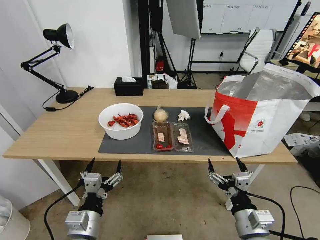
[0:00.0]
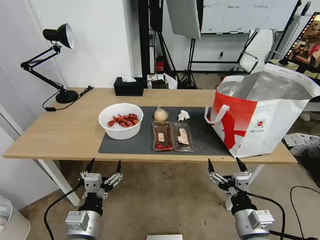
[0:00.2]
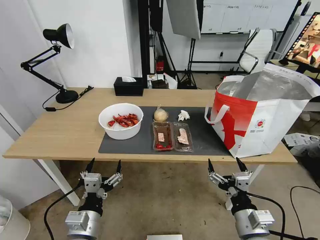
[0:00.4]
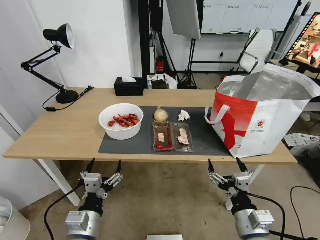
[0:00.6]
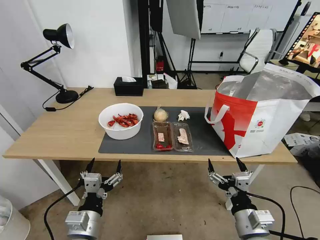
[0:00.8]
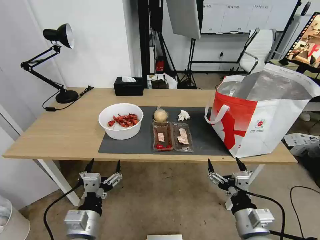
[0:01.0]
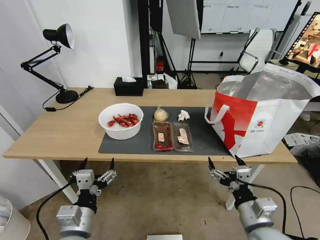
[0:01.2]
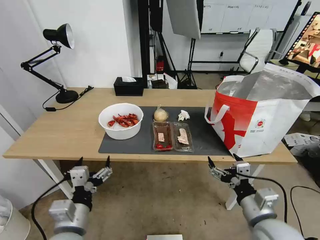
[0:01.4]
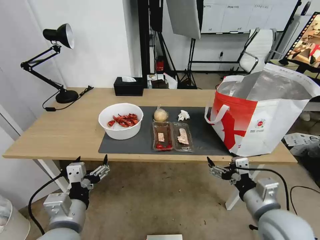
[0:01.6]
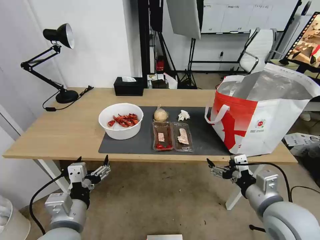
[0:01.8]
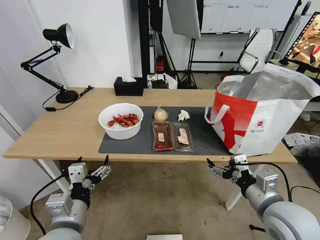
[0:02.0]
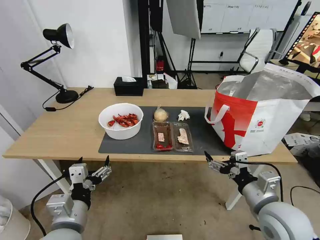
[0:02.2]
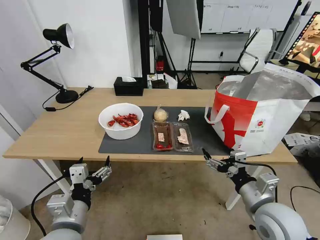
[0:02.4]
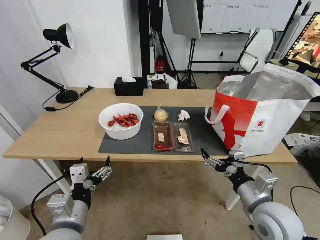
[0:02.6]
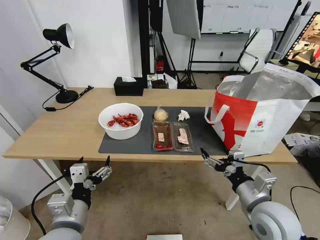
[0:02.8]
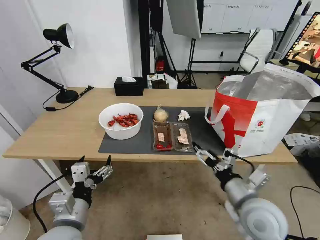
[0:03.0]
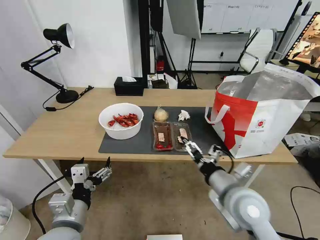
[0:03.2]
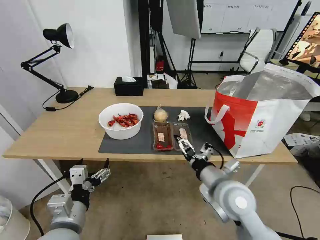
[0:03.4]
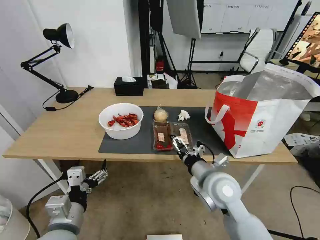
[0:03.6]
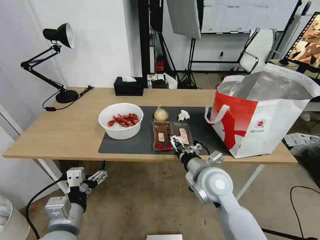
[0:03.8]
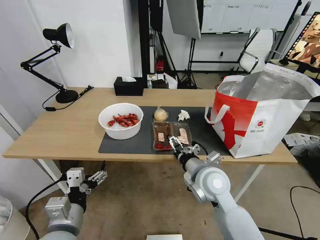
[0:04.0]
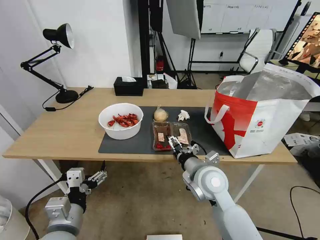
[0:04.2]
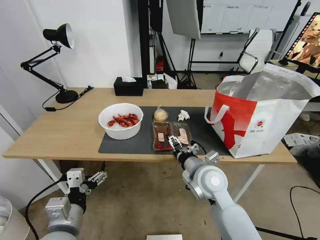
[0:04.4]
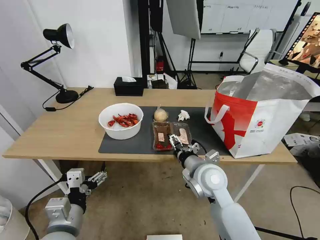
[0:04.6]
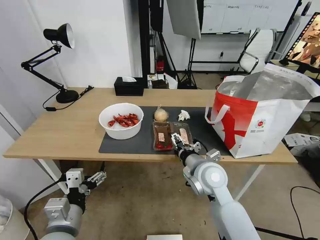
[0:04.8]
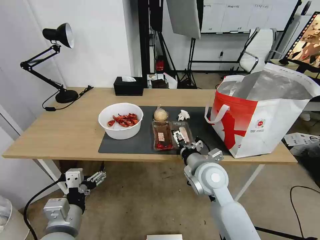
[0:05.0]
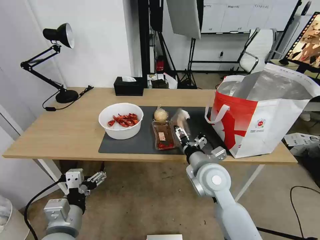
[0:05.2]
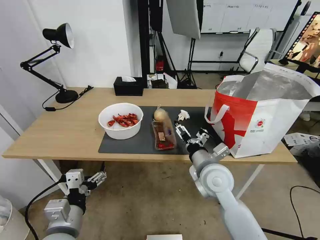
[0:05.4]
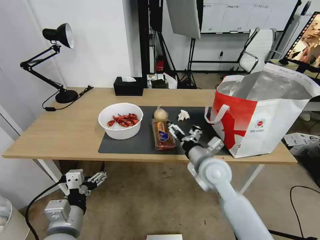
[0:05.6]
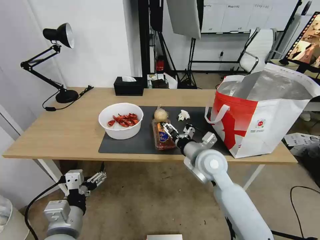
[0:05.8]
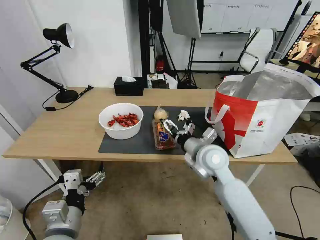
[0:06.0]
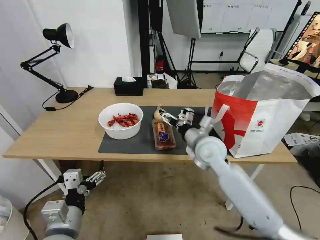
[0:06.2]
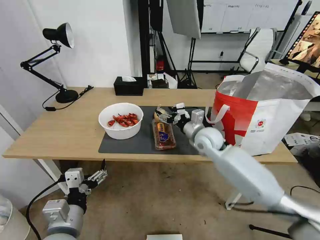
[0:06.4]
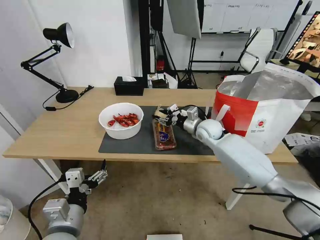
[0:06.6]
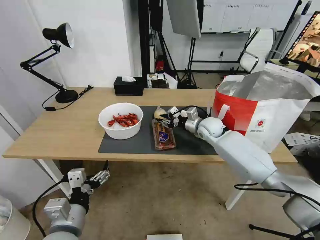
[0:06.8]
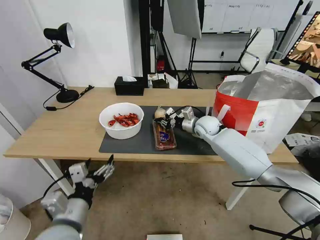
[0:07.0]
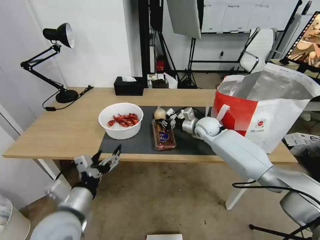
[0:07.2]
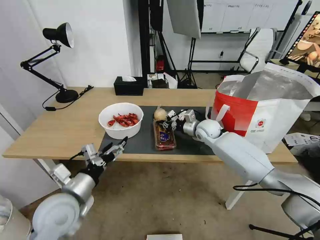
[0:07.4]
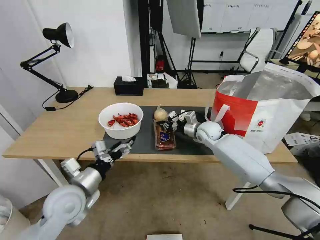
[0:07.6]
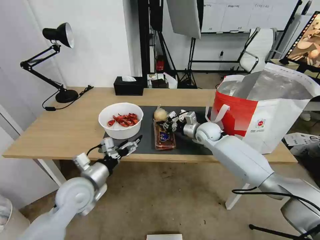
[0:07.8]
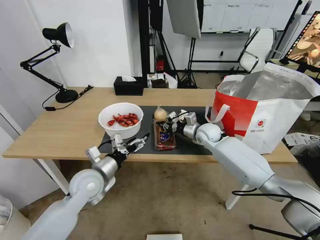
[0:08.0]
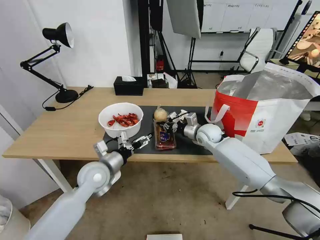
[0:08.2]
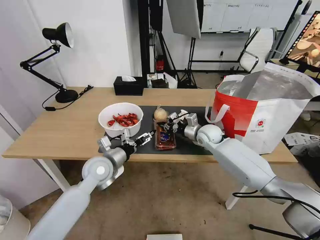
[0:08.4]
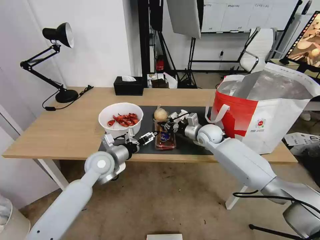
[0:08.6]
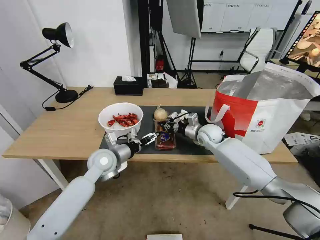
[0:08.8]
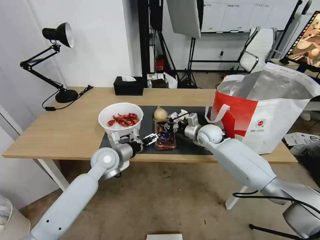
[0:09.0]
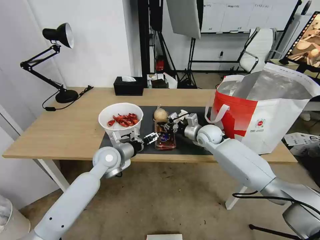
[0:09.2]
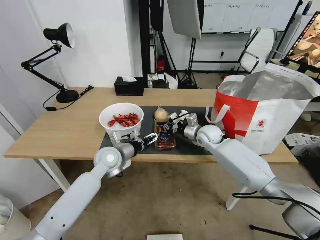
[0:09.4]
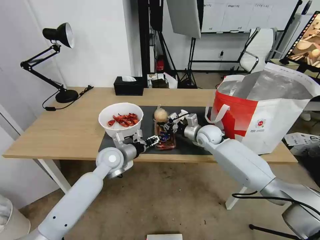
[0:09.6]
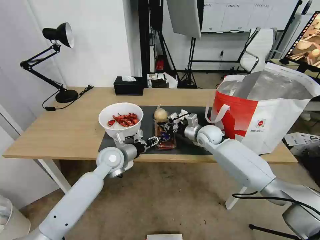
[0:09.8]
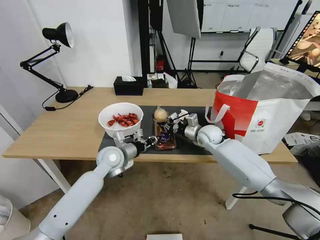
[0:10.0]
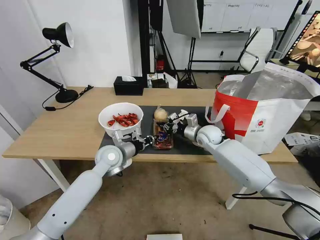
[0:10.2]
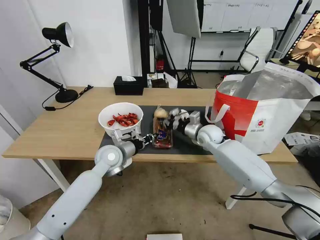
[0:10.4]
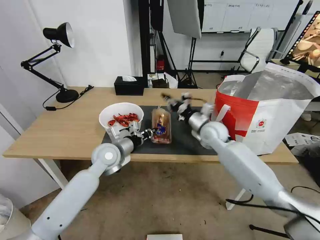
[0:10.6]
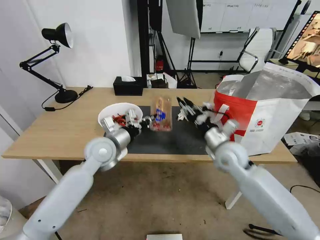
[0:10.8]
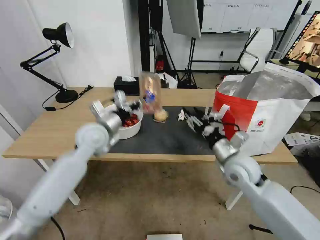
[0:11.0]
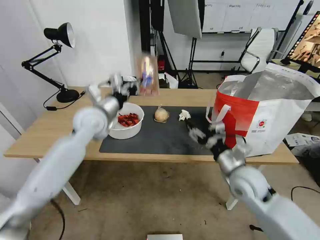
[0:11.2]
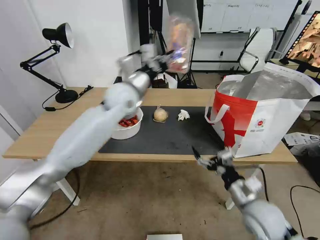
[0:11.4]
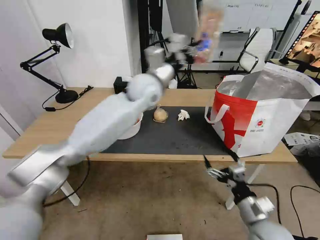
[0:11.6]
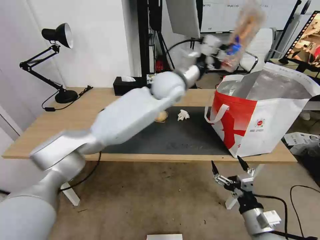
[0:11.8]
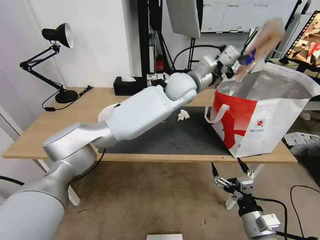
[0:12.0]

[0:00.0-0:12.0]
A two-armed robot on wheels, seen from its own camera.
Task of the whole recording: Pick up the trash from the table and place it into the takeout bag.
0:03.0 to 0:04.4: The right gripper moves to the left and forward, roughly 15 cm.
0:04.4 to 0:06.0: The right gripper heads forward, covering approximately 5 cm.
0:06.0 to 0:07.6: The left gripper is displaced forward by some 10 cm, while the right gripper heads forward, covering about 15 cm, and closes.
0:07.6 to 0:09.0: The left gripper goes about 15 cm forward and to the right.
0:09.0 to 0:10.4: The left gripper closes.
0:10.4 to 0:12.0: The right gripper is displaced backward by about 40 cm, and opens up; the left gripper shifts about 35 cm to the right, upward and forward.

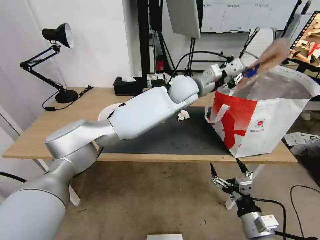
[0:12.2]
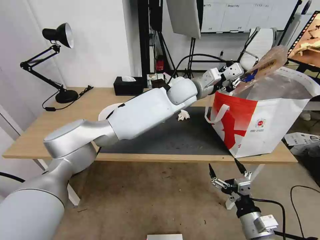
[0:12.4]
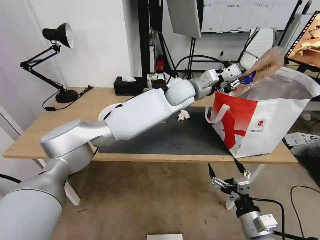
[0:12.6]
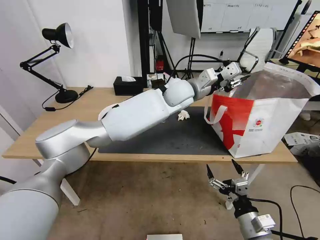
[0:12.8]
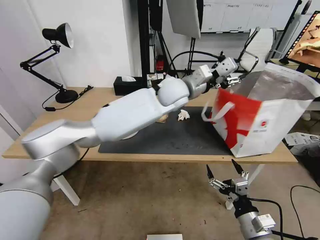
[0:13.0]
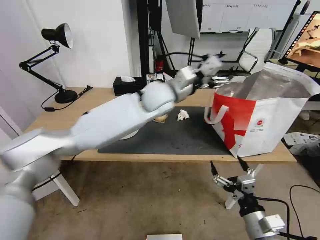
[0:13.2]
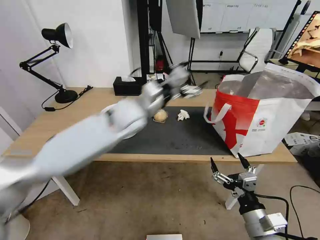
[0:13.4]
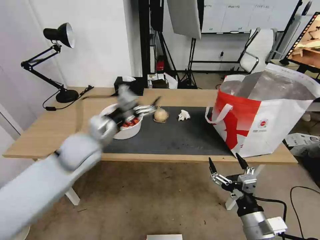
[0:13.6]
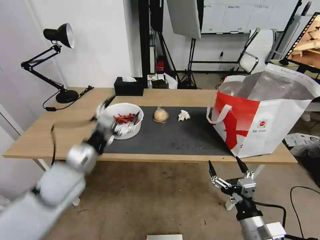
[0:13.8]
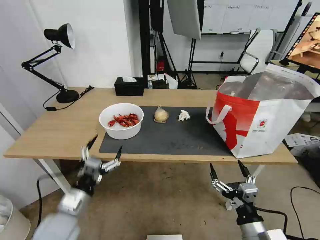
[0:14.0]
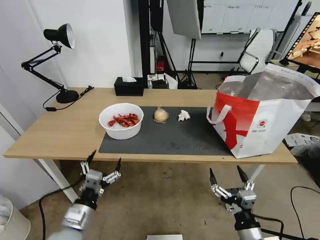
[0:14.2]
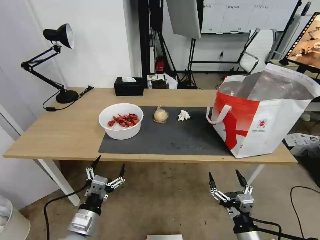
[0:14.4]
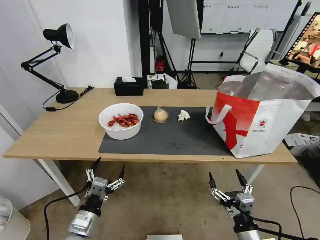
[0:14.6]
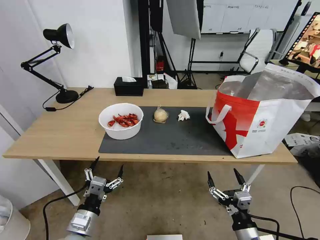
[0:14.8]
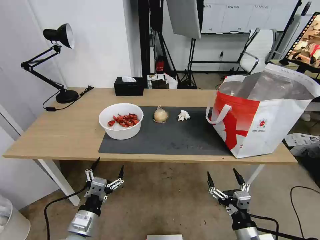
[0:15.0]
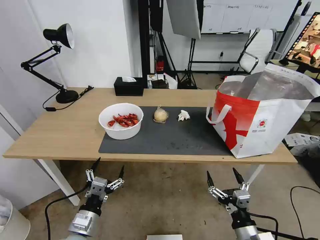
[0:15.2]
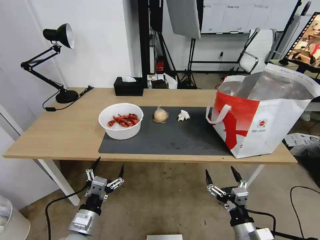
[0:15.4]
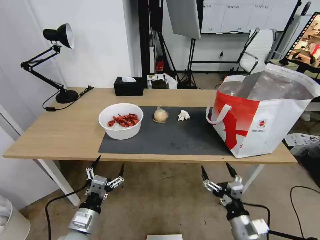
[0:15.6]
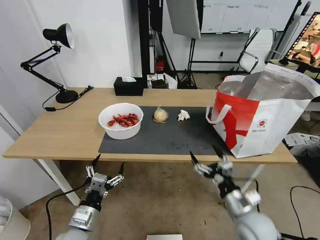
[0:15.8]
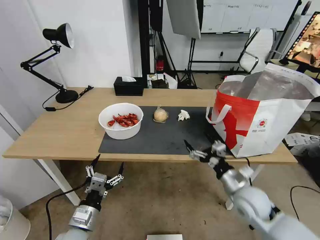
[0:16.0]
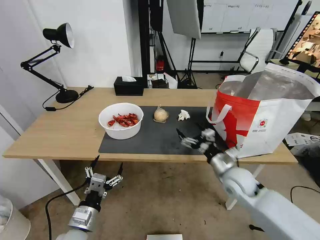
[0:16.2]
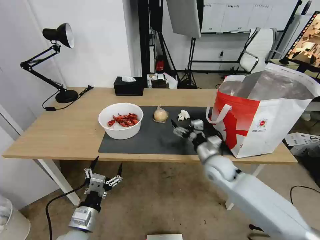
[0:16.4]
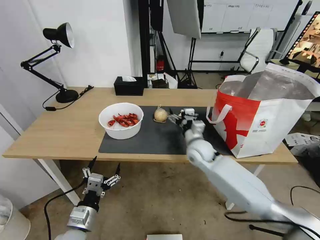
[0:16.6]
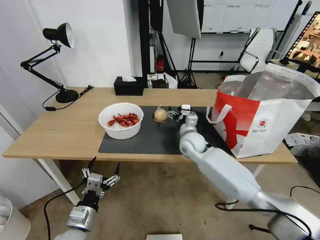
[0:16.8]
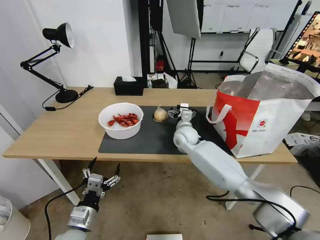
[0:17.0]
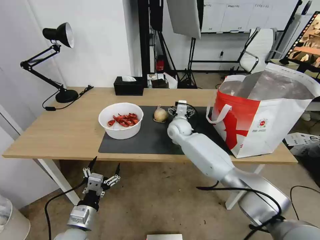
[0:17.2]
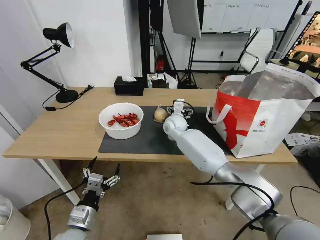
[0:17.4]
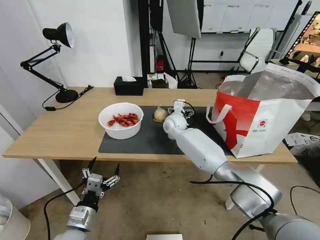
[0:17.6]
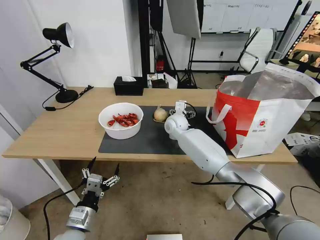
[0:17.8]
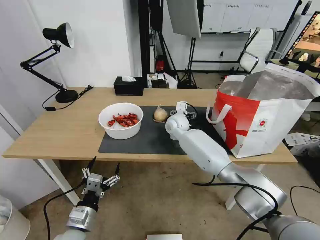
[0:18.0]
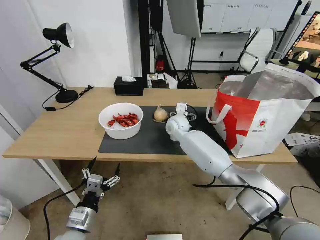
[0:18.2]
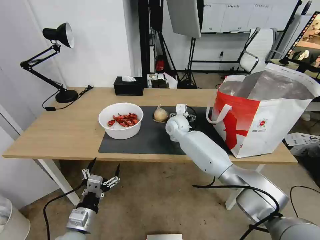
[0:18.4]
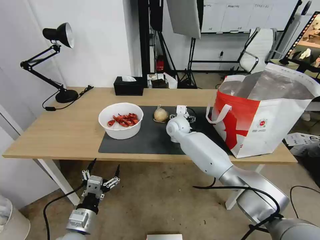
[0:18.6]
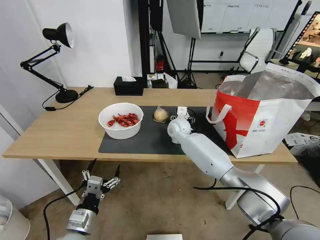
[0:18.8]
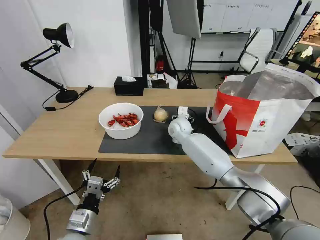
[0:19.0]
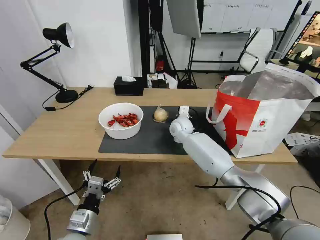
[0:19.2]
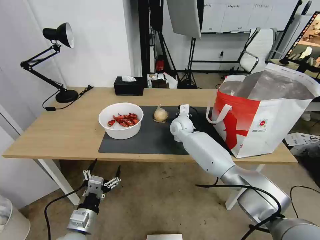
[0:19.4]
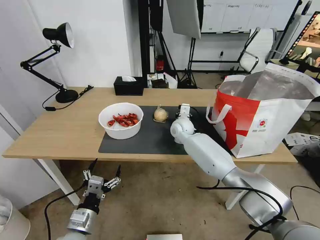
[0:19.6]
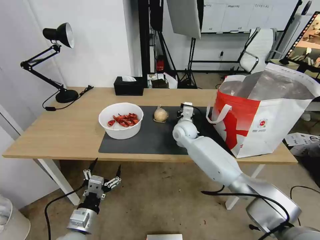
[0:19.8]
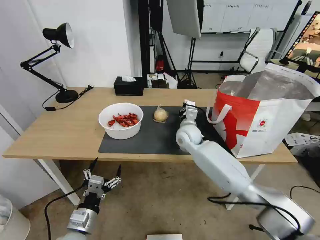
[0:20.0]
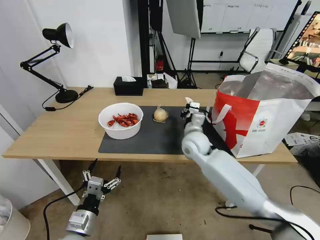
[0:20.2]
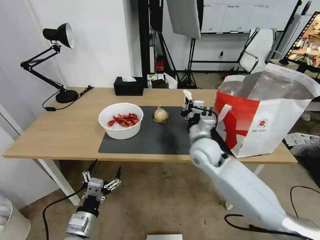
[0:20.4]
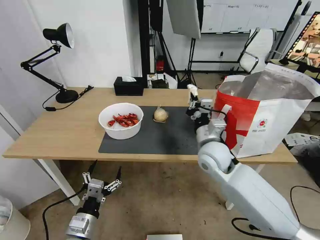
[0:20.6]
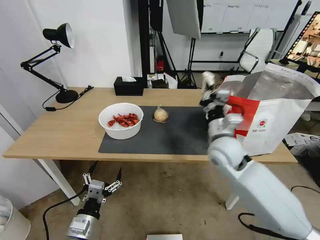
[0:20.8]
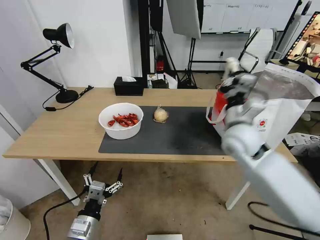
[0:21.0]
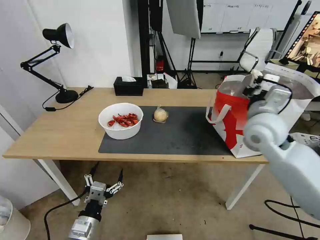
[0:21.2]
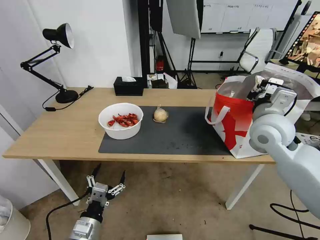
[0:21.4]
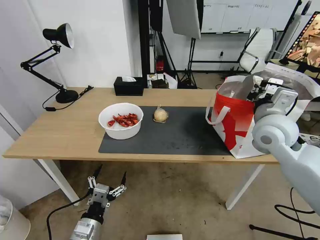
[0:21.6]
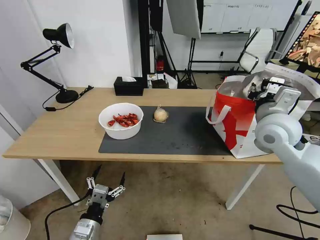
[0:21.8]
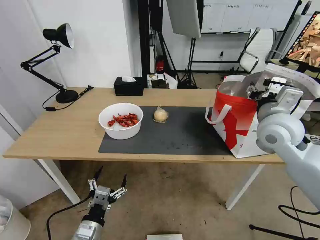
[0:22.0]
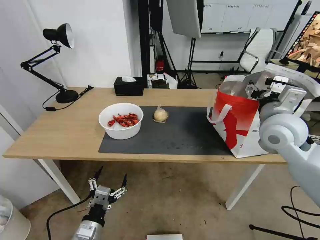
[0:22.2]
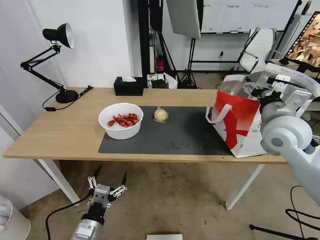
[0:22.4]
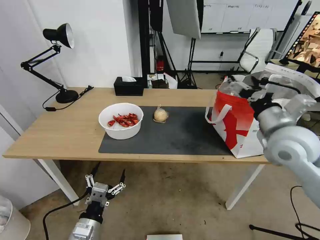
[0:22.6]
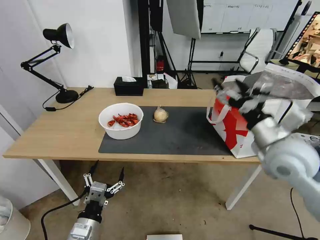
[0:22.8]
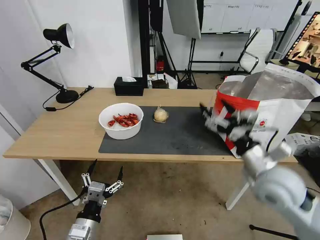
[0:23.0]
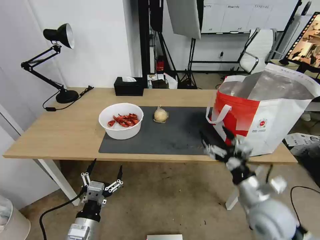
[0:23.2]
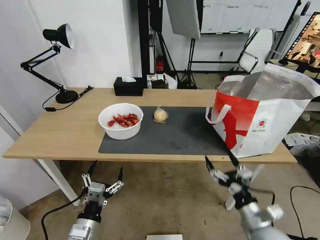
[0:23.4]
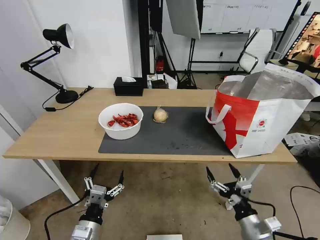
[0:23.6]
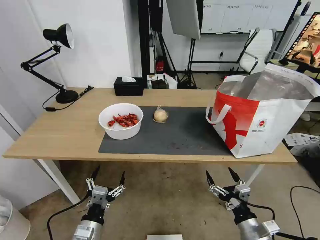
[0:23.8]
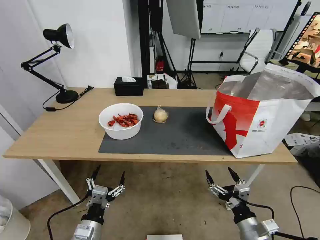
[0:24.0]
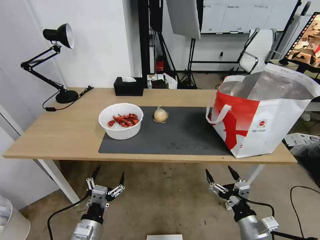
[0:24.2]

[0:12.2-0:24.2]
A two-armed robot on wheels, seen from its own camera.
Task of the whole recording: Pick up the trash from the table and place it into the takeout bag.
0:12.2 to 0:13.8: The left gripper moves to the left and backward, approximately 40 cm, and opens.
0:13.8 to 0:15.2: The right gripper moves downward, about 5 cm, while the left gripper is displaced downward and backward by roughly 20 cm.
0:15.2 to 0:16.6: The right gripper goes approximately 35 cm forward.
0:16.6 to 0:18.2: The right gripper travels forward and to the left by about 15 cm.
0:18.2 to 0:19.8: The right gripper closes its fingers.
0:19.8 to 0:21.2: The right gripper shifts some 30 cm to the right, upward and backward.
0:21.2 to 0:22.6: The right gripper ends up about 5 cm from where it was, and opens its fingers.
0:22.6 to 0:24.2: The right gripper heads downward and backward, covering some 30 cm.
